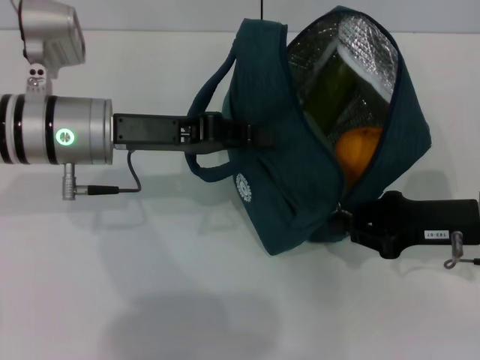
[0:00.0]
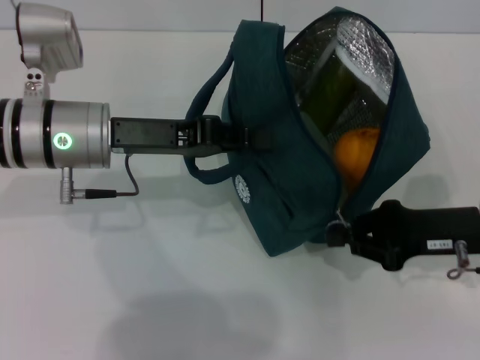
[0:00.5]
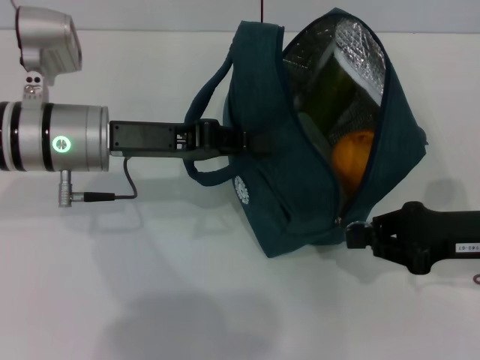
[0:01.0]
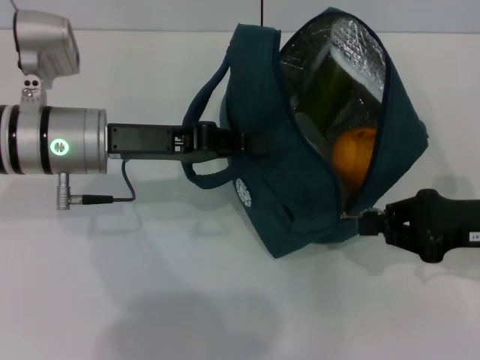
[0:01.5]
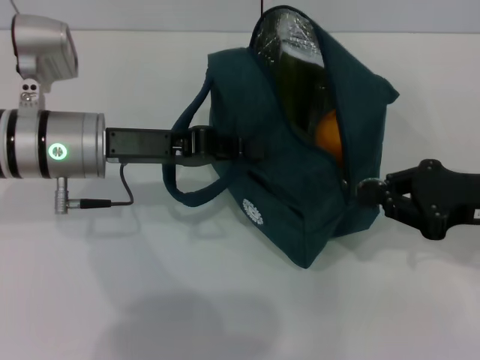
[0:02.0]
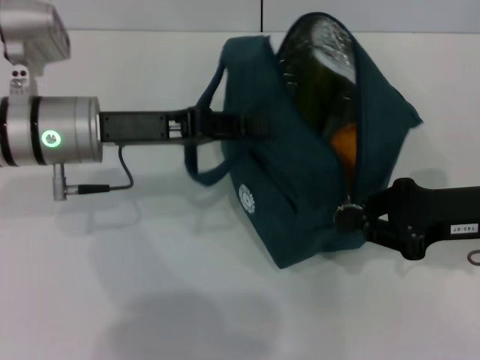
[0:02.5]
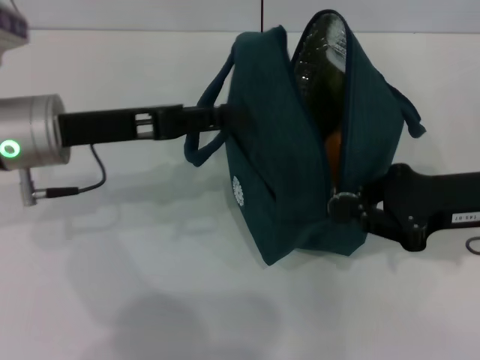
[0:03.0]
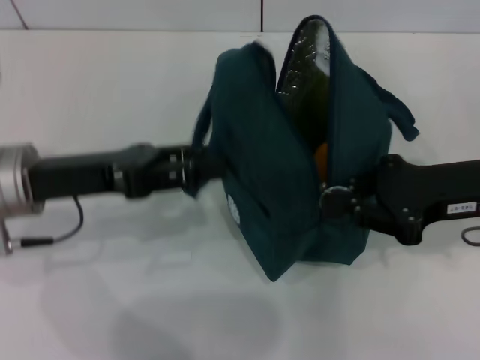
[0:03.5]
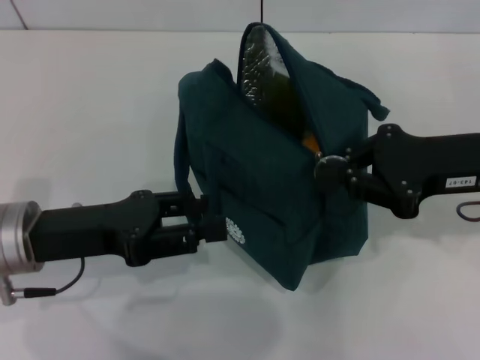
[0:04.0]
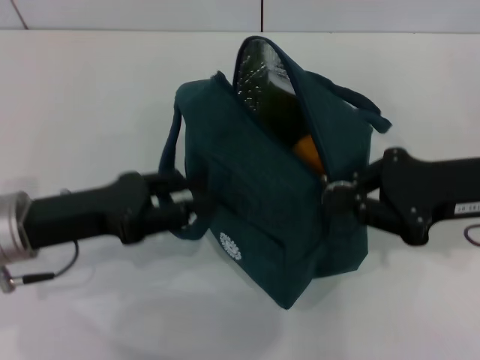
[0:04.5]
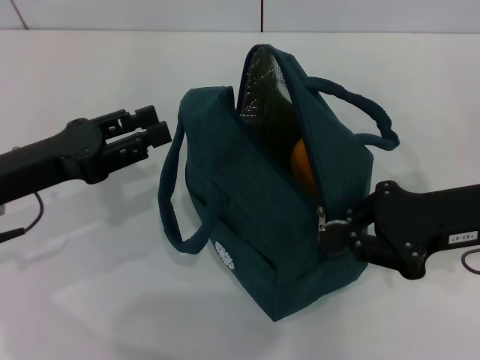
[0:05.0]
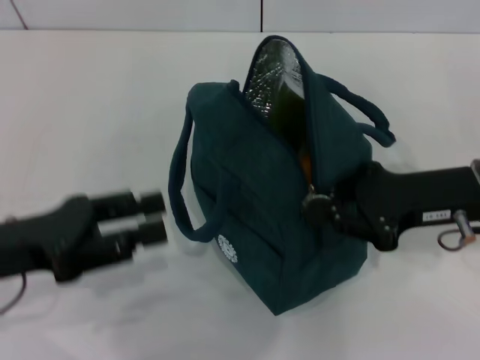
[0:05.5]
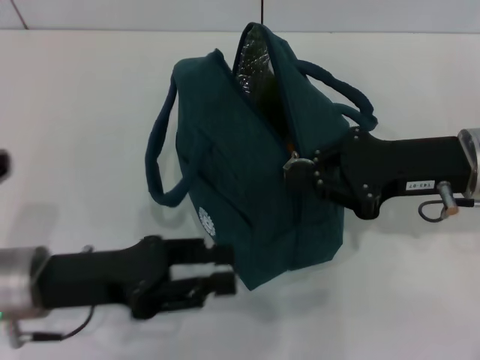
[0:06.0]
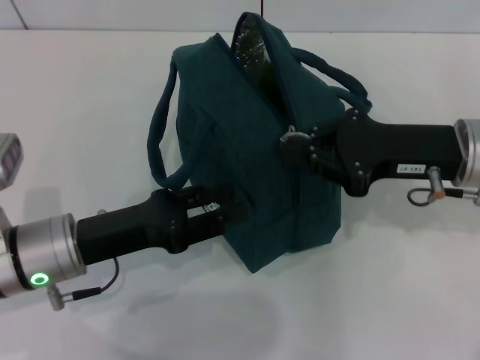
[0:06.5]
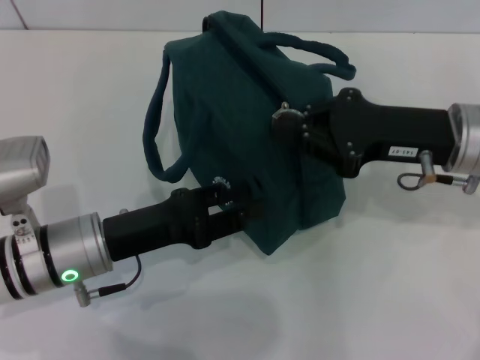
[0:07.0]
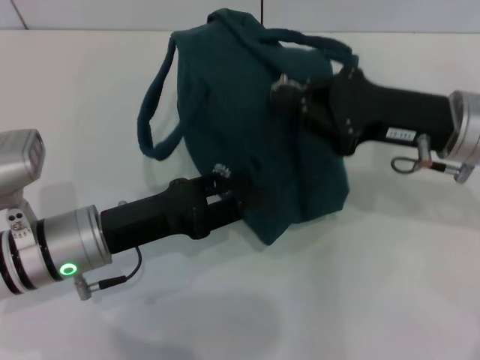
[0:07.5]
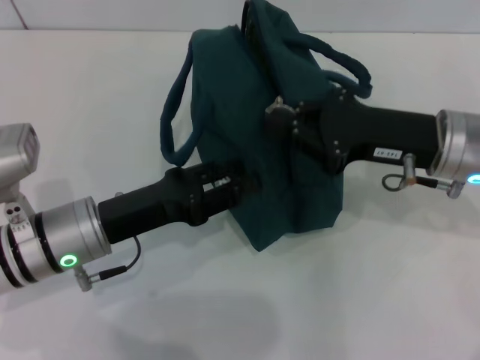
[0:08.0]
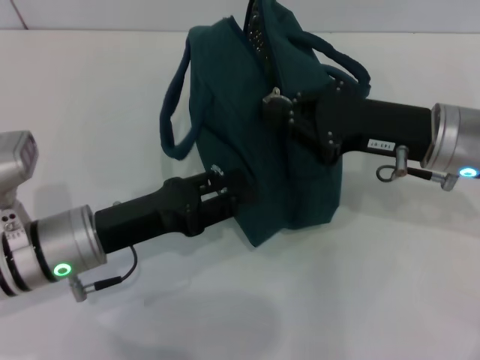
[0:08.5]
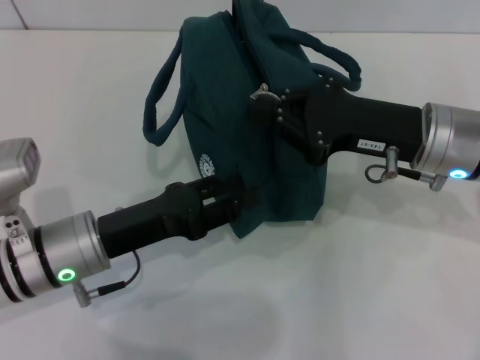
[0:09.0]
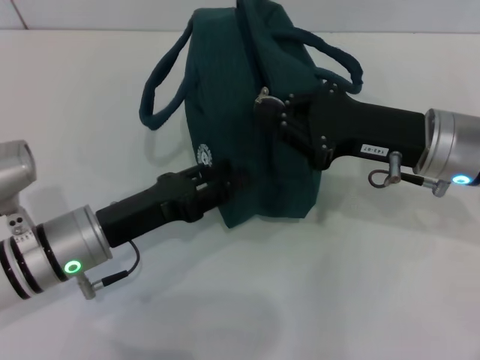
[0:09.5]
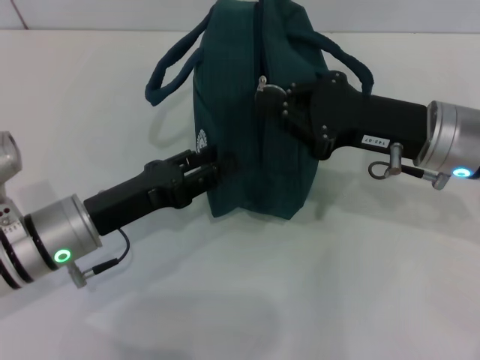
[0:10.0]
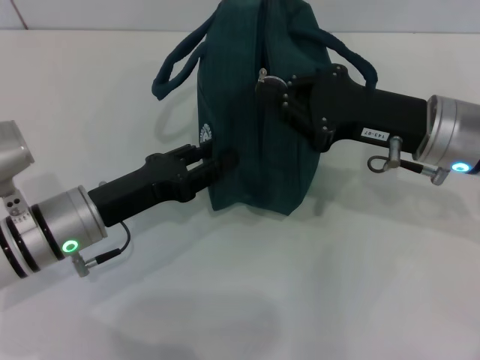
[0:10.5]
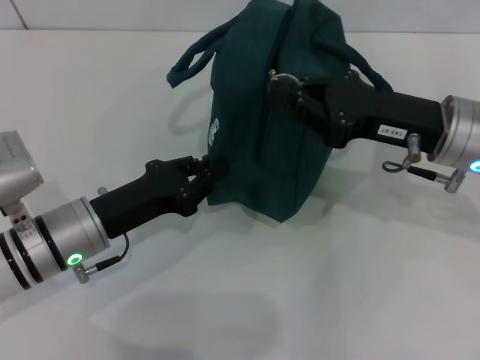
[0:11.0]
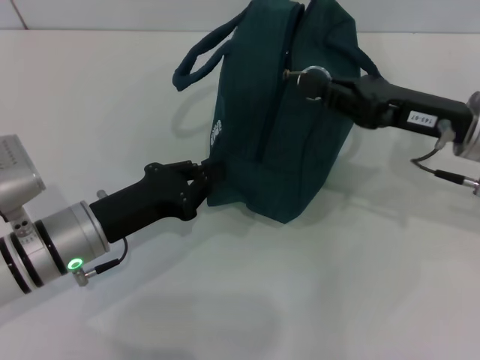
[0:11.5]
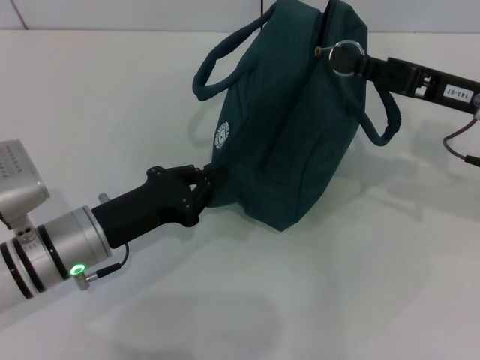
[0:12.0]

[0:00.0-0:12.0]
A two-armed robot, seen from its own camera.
Step, 0:00.0 to 0:03.5: Hold the lunch bag with your left hand.
0:00.0 to 0:02.0: The right gripper ends up roughly 5 cm from where it was.
0:02.0 to 0:04.0: The left gripper goes about 10 cm backward, and opens, while the right gripper ends up about 5 cm from where it was.
0:06.0 to 0:08.0: The left gripper changes place by about 5 cm.
0:08.0 to 0:10.0: There are only small adjustments of the grippers.
0:10.0 to 0:12.0: The left gripper closes its fingers. The right gripper travels to the right by some 5 cm.

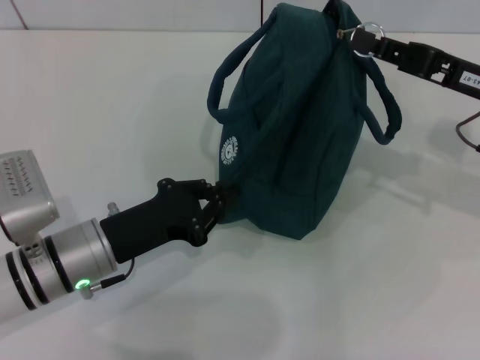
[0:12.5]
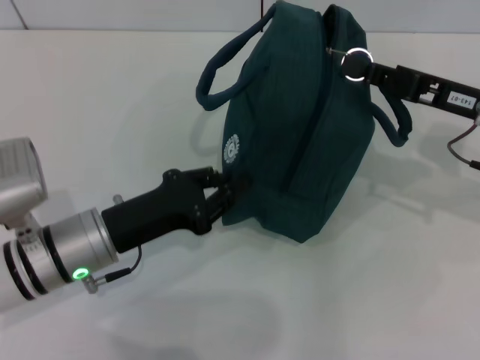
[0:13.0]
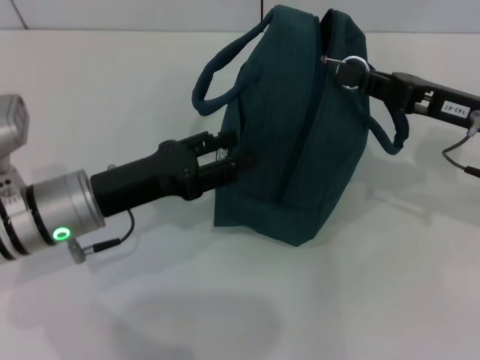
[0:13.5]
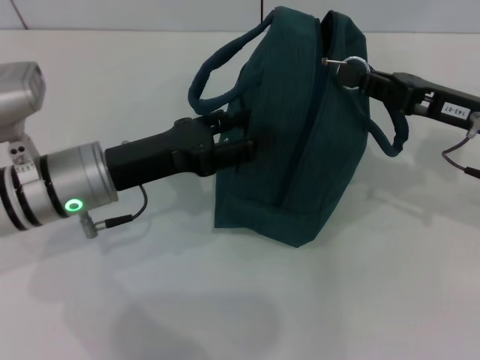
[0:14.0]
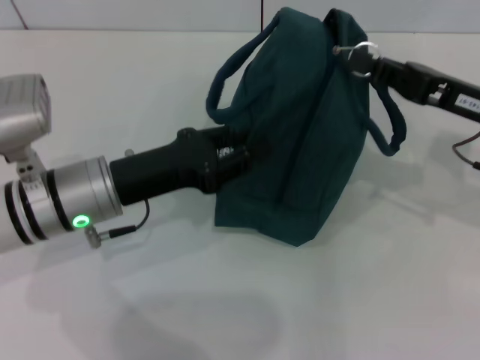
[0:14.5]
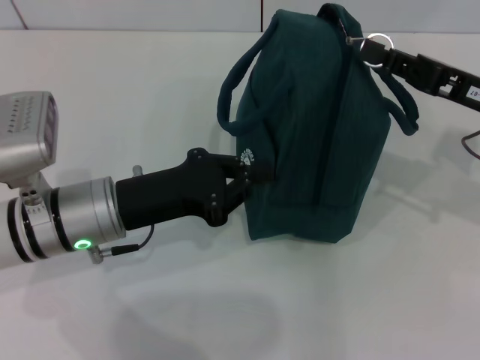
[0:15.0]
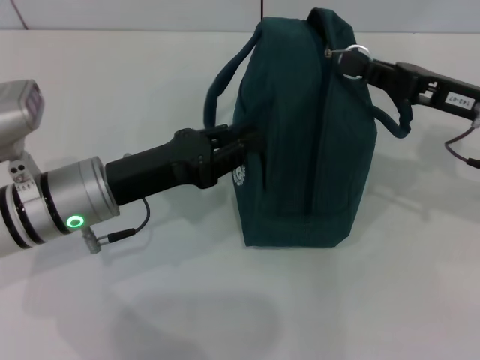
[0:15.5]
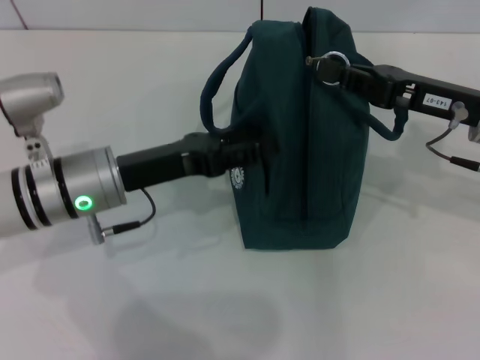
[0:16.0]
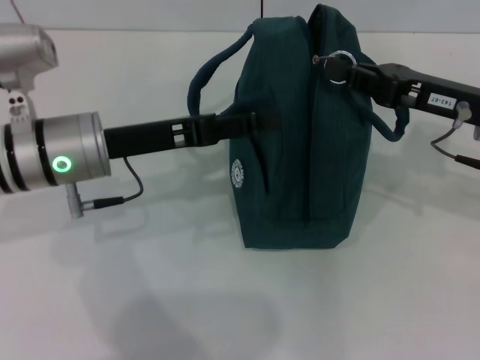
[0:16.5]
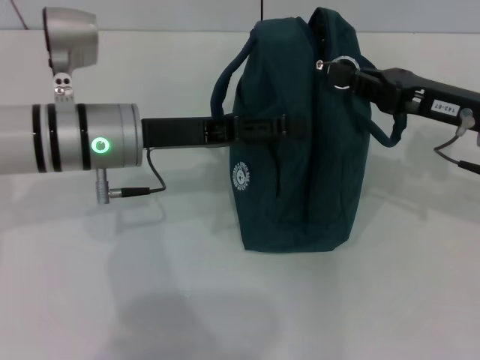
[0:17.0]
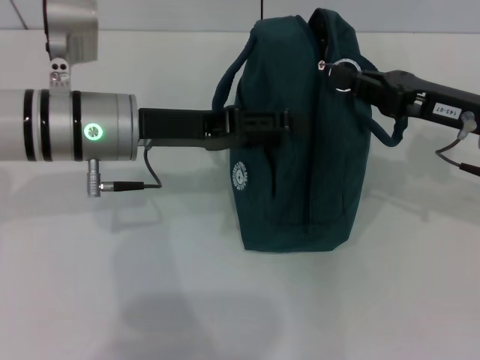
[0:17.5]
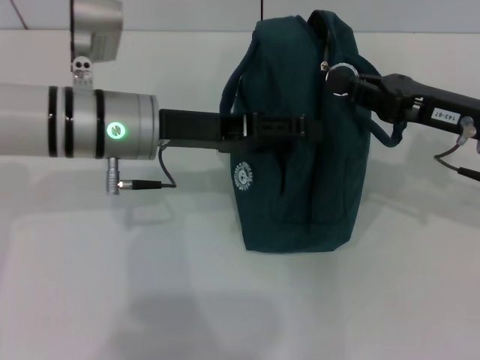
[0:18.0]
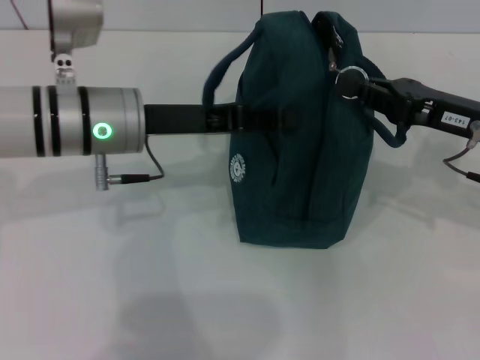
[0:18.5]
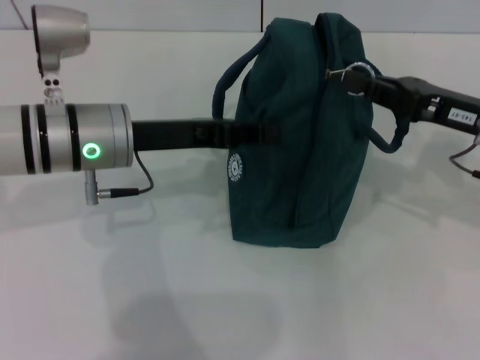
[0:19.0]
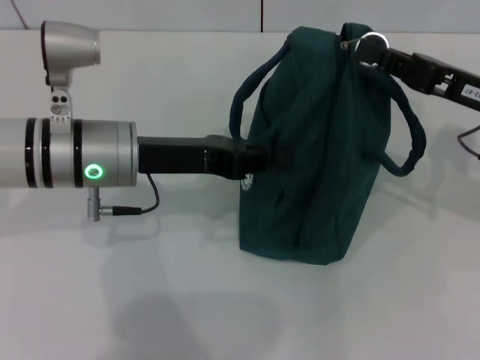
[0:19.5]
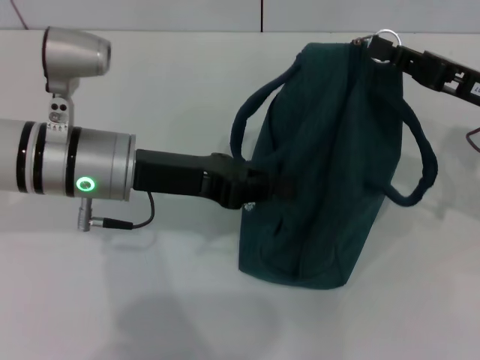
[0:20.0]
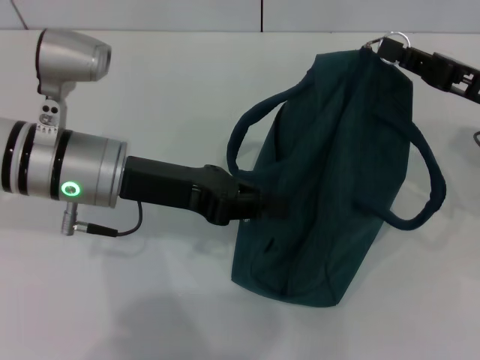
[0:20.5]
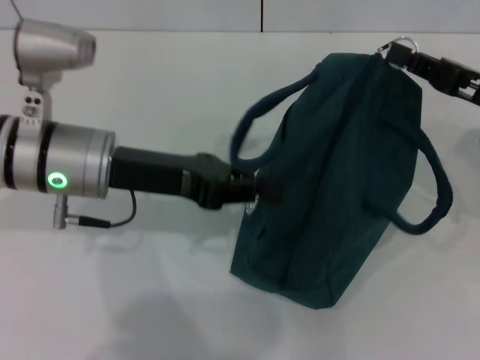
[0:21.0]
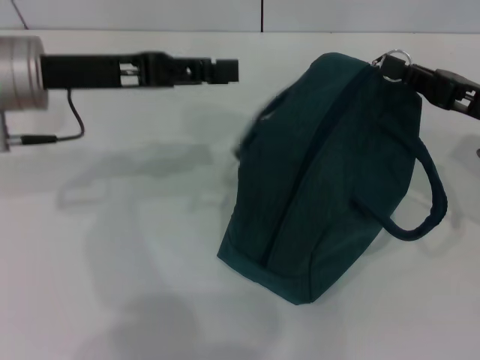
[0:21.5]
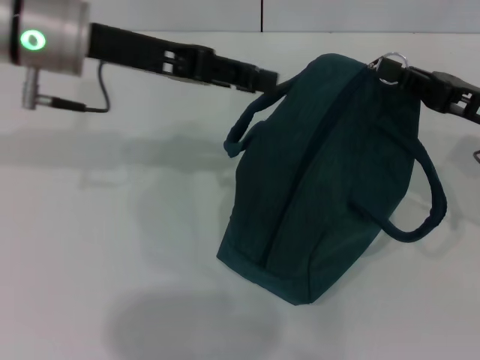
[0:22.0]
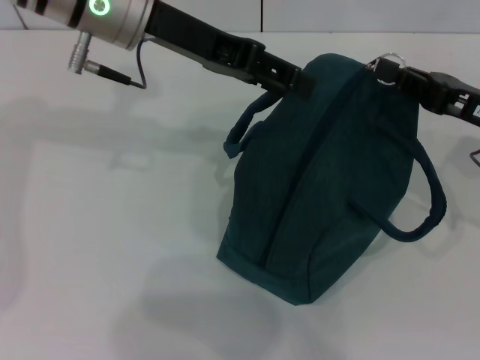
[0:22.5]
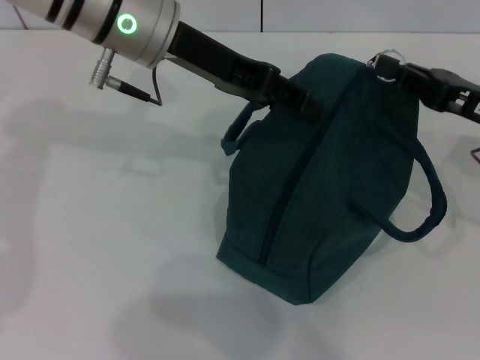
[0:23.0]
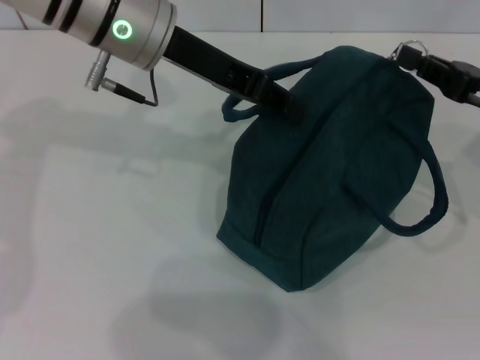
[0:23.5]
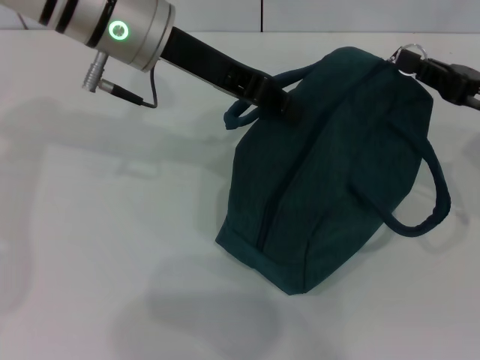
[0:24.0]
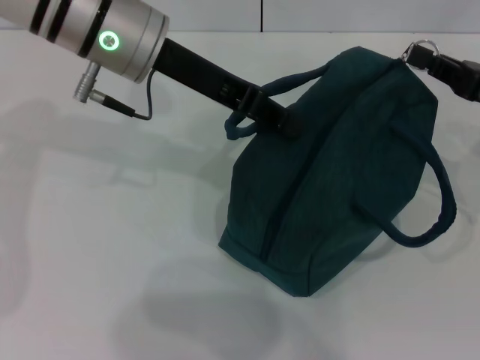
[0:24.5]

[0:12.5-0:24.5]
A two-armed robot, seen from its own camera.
0:12.5 to 0:14.5: The left gripper shifts approximately 5 cm upward, and opens.
0:14.5 to 0:16.5: The left gripper opens up.
0:16.5 to 0:18.5: The grippers stay close to where they were, moving slightly.
0:18.5 to 0:20.5: The left gripper closes.
0:20.5 to 0:22.5: The left gripper is displaced upward and forward by approximately 15 cm, and opens up.
0:22.5 to 0:24.5: The left gripper closes its fingers.

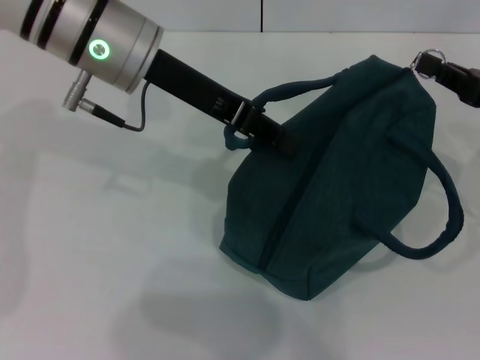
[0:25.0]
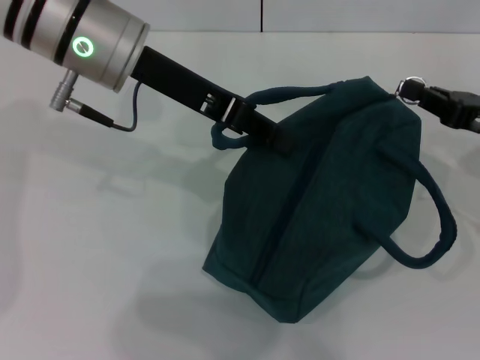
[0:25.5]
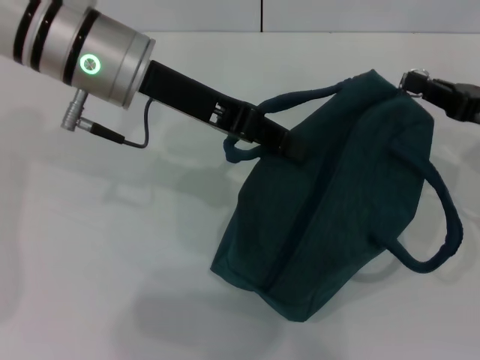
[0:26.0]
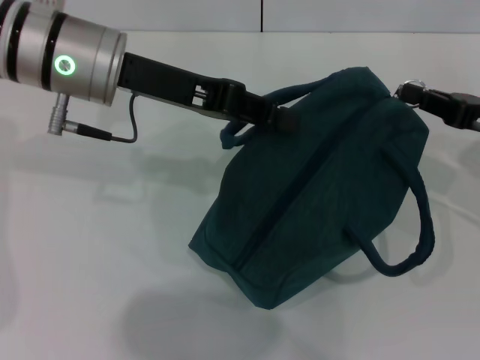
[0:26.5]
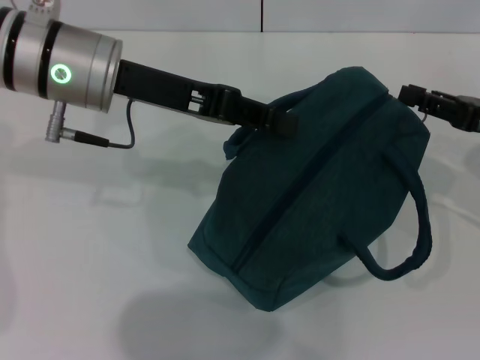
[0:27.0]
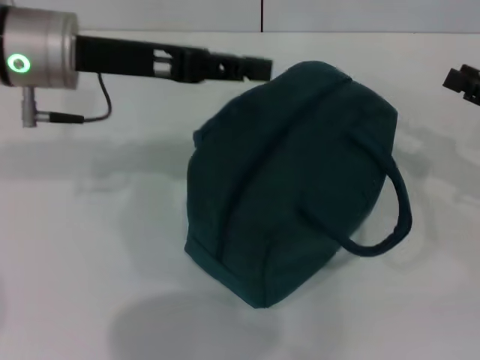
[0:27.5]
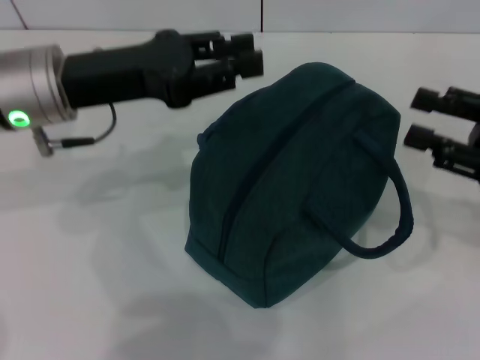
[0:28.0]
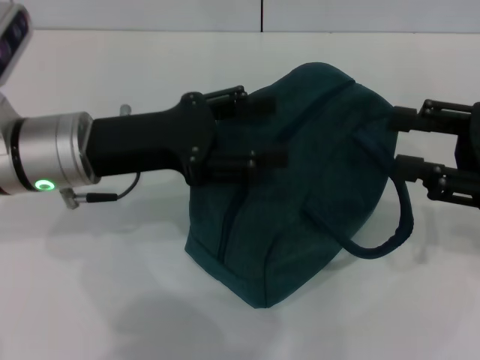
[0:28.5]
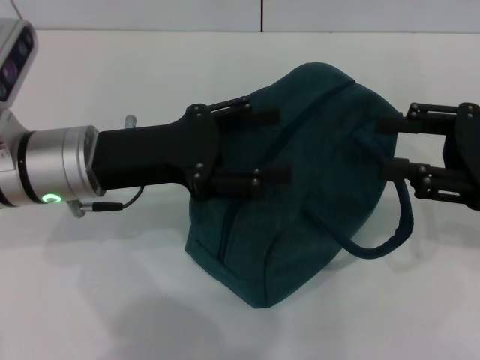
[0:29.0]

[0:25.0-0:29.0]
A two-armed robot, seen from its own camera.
Step, 0:25.0 to 0:27.0: Zip up the lunch bag with your right hand.
0:27.0 to 0:29.0: The left gripper heads downward and backward, covering roughly 10 cm, and opens, while the right gripper moves roughly 5 cm, and opens its fingers.
